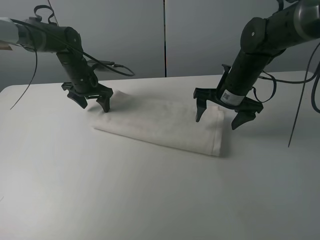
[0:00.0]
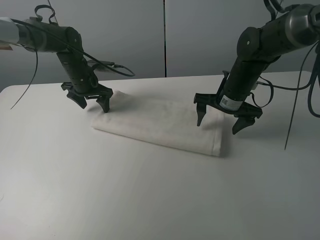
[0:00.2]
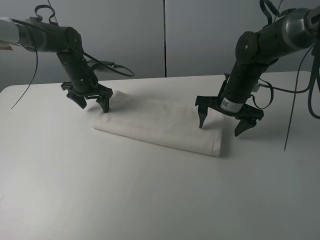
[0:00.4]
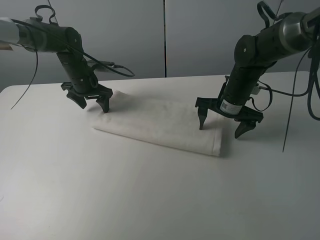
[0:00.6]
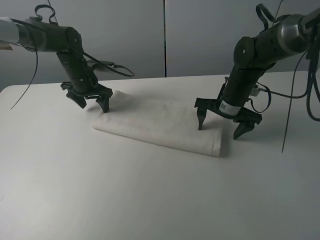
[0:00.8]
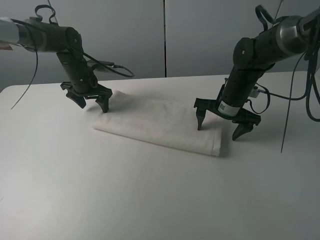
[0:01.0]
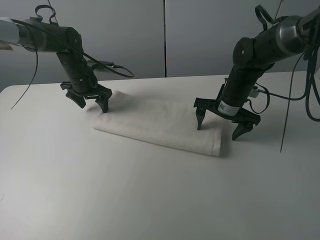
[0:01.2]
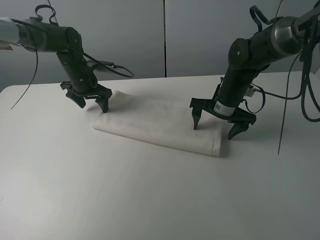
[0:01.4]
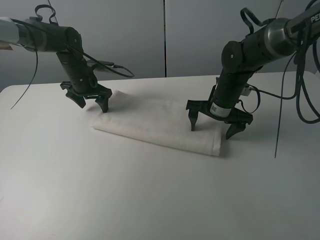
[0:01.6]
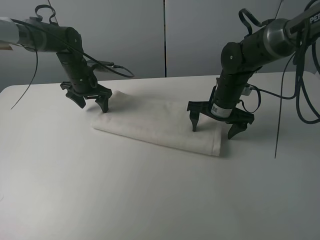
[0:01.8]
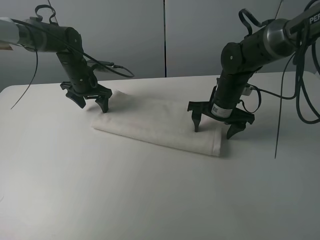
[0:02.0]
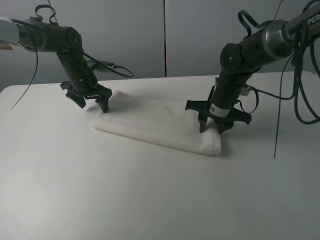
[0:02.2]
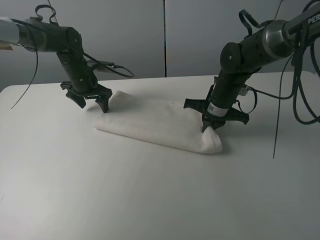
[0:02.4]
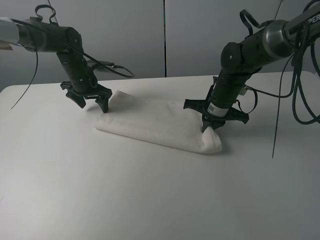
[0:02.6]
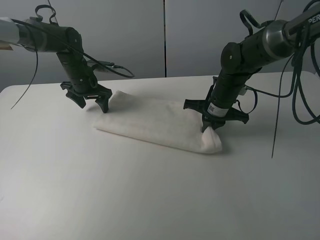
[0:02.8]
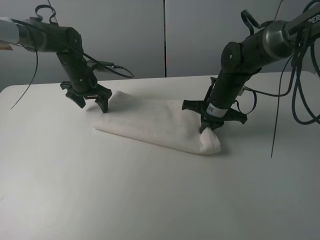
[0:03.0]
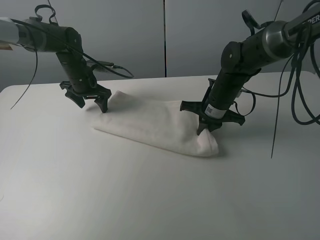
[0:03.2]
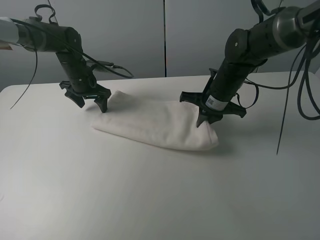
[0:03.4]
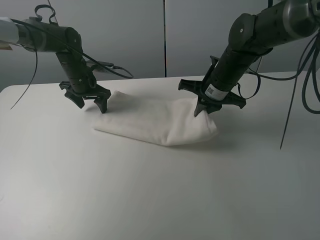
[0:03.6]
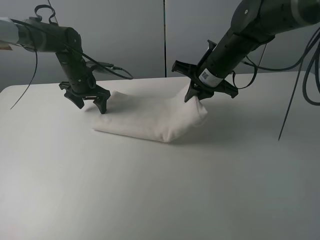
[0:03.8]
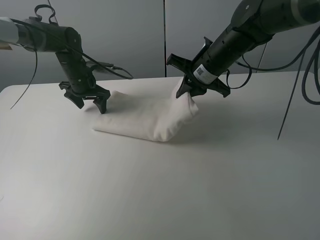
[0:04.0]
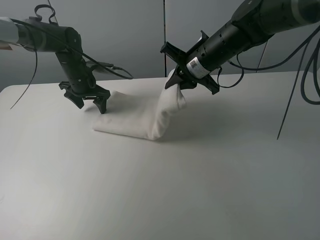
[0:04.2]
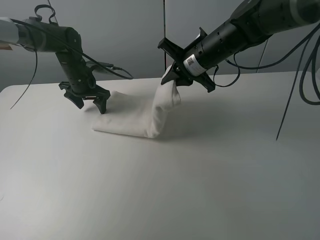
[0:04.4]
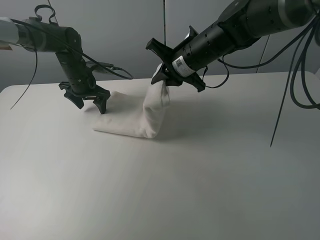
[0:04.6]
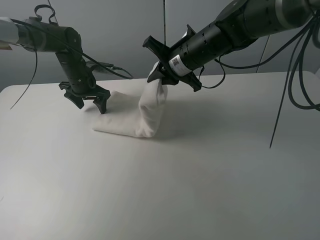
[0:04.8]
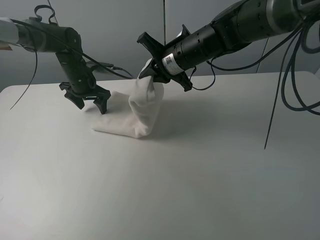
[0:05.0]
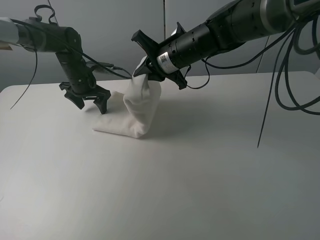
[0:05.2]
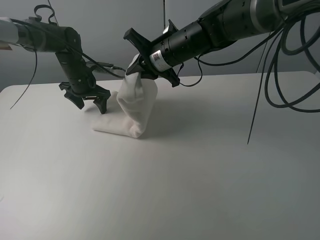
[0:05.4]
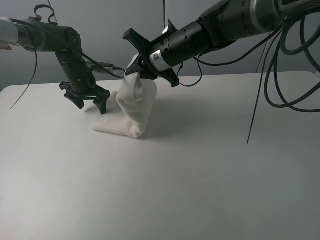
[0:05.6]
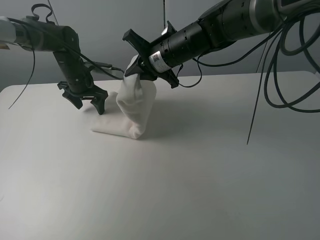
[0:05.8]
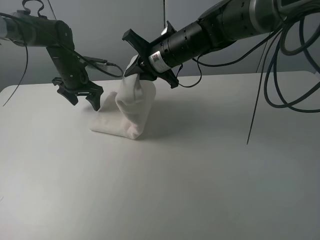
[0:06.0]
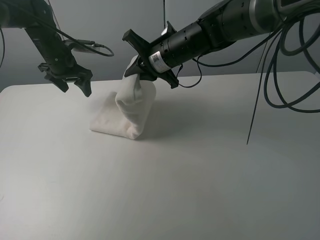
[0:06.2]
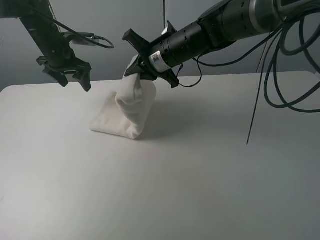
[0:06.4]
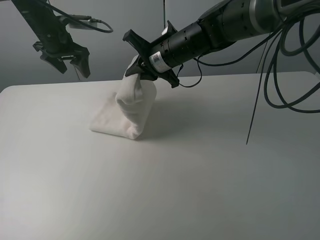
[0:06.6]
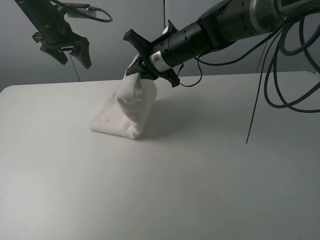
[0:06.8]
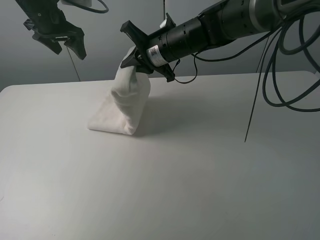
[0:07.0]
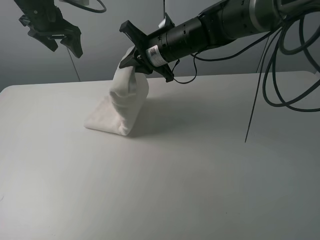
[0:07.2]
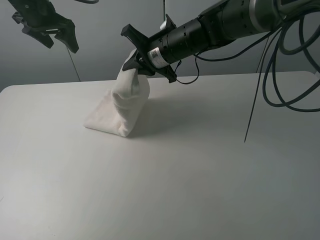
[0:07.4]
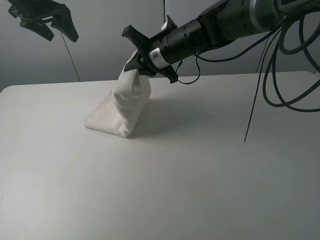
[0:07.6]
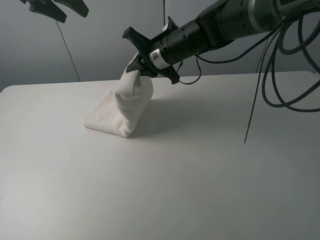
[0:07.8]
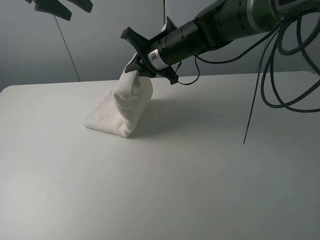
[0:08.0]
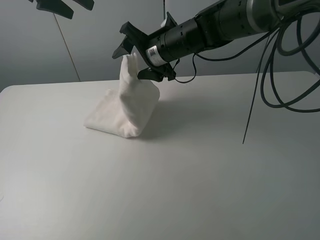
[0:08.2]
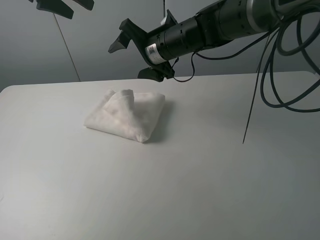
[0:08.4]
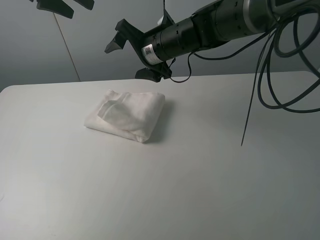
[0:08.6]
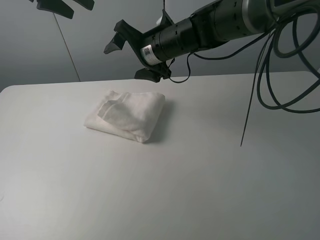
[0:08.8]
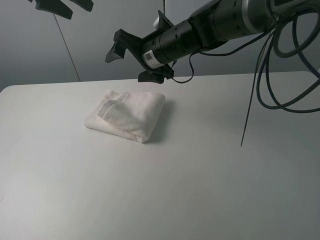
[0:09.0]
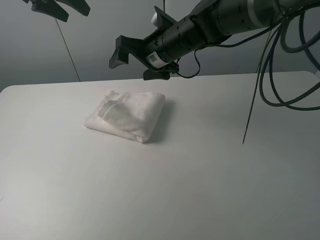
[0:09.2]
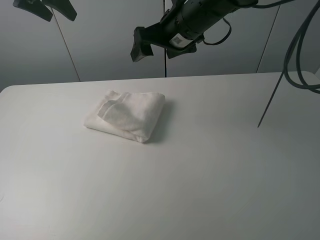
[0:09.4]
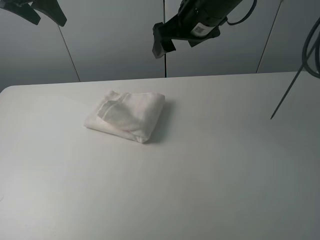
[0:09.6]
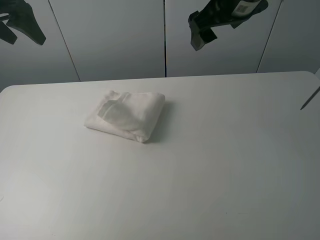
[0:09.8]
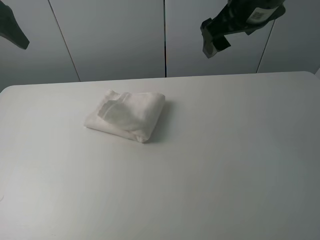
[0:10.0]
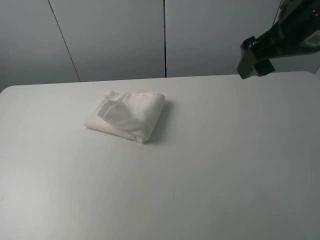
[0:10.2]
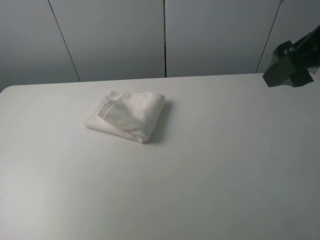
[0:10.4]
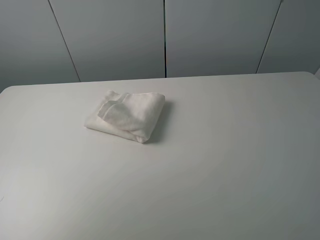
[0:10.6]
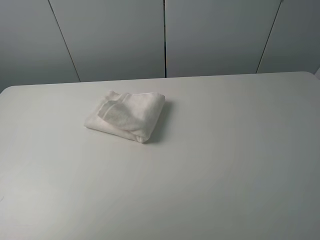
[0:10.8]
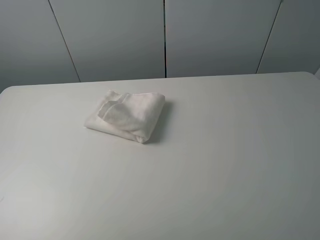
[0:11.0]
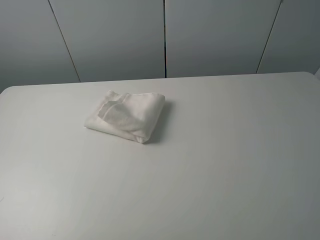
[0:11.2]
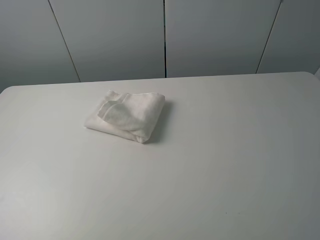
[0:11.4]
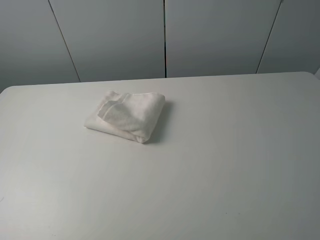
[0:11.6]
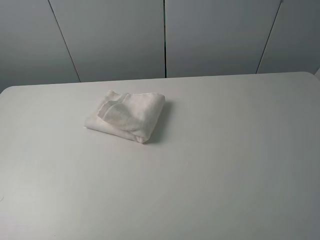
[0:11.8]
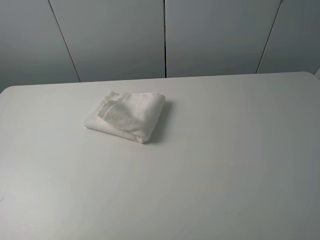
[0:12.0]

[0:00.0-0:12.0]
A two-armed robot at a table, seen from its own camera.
Task of the whole recording: fold the towels on the table.
Step, 0:00.4 to 0:08.8: Fold the white towel from right to left with right gripper.
0:00.0 to 0:01.6: The grippers stay close to where they were, moving slightly.
0:01.6 to 0:03.0: The right gripper closes its fingers.
0:03.0 to 0:04.4: The right gripper heads upward, covering some 10 cm.
0:04.4 to 0:06.0: The right gripper travels to the left by some 5 cm.
0:06.0 to 0:07.6: The left gripper shifts about 20 cm upward.
0:07.6 to 0:09.0: The right gripper opens.
0:09.0 to 0:10.4: The left gripper goes about 25 cm backward and to the left; the right gripper shifts some 30 cm to the right, backward and upward.
0:10.4 to 0:12.0: The right gripper goes approximately 20 cm backward and to the right; the left gripper is displaced backward by roughly 20 cm.

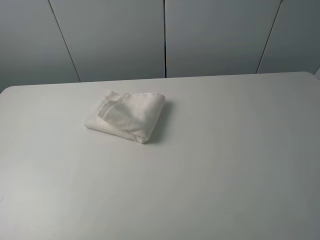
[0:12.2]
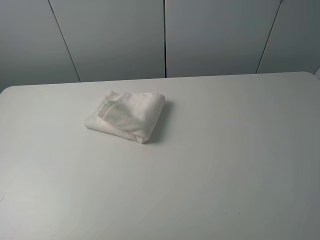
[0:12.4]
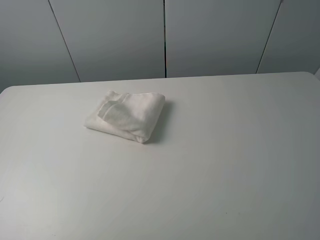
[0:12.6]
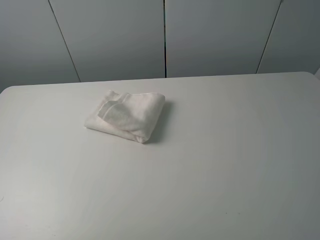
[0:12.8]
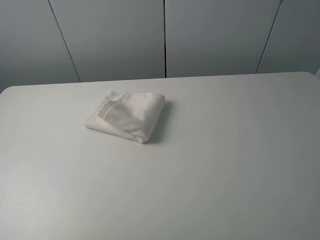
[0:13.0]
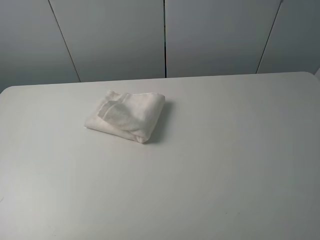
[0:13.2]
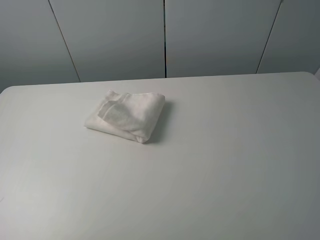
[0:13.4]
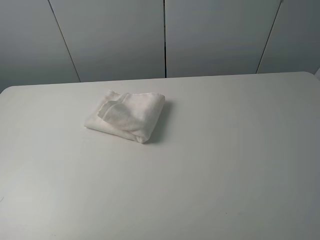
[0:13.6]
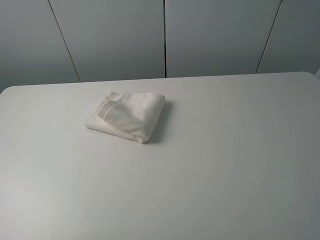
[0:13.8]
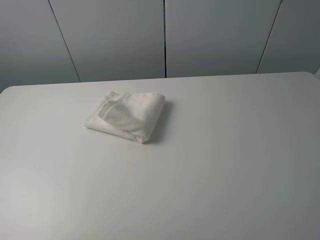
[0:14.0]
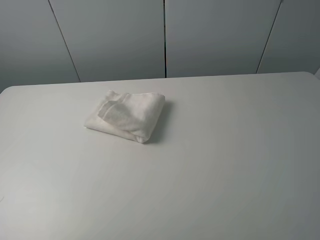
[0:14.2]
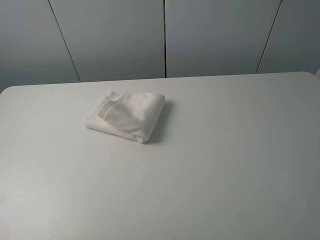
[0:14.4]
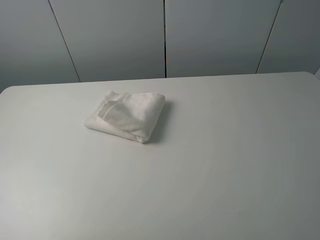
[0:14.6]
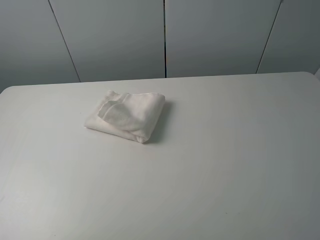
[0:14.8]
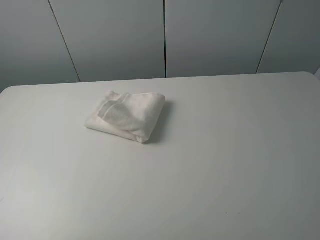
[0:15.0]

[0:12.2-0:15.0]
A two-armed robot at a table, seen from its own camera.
Task of the whole recording: fold the towels on the table.
0:13.6 to 0:15.0: Neither gripper changes place.
